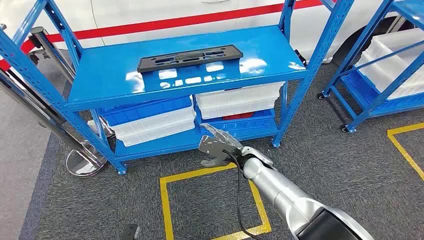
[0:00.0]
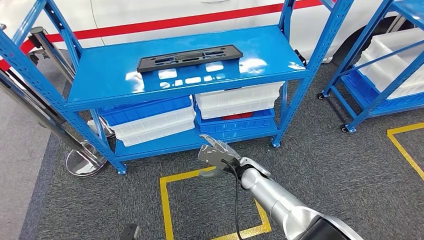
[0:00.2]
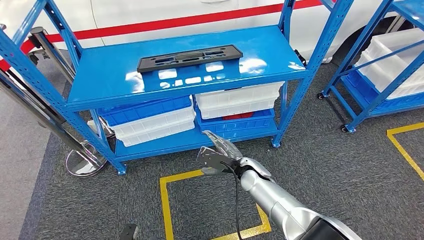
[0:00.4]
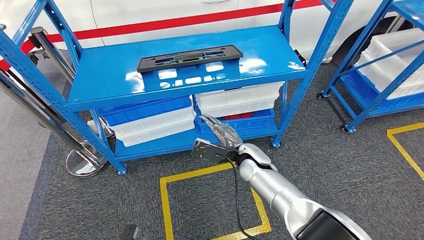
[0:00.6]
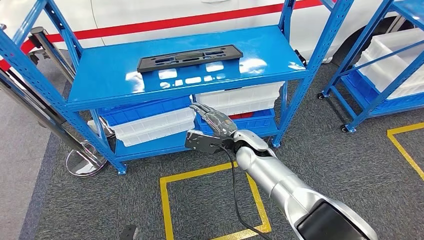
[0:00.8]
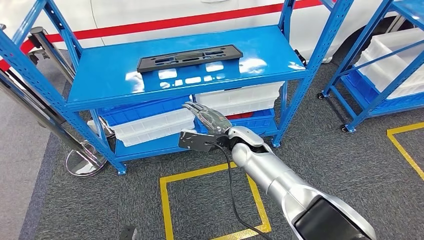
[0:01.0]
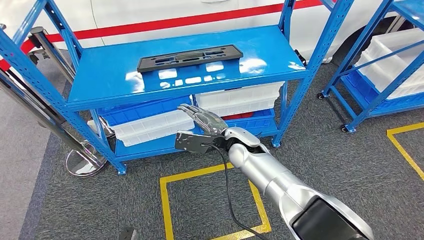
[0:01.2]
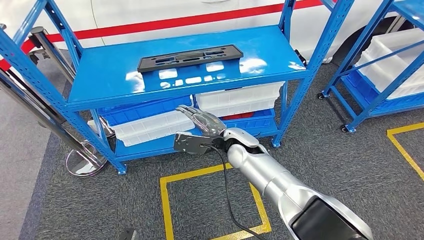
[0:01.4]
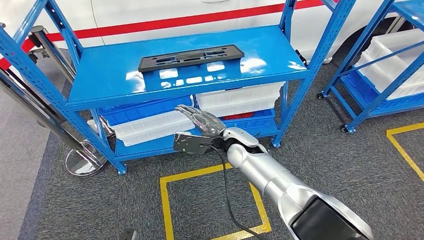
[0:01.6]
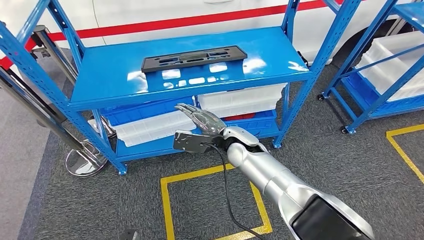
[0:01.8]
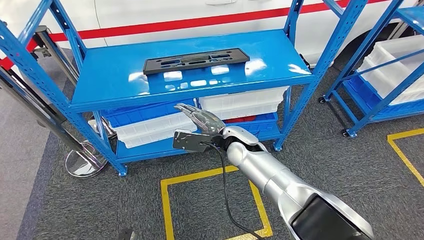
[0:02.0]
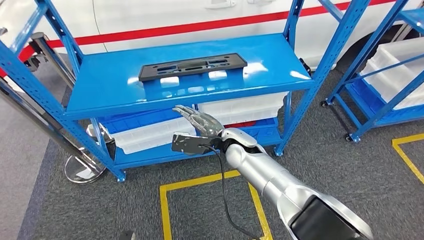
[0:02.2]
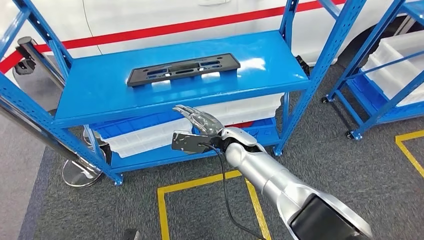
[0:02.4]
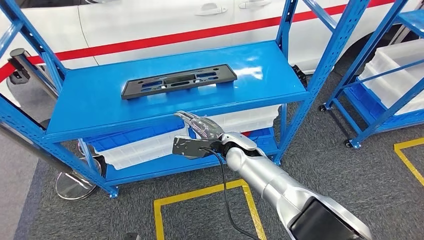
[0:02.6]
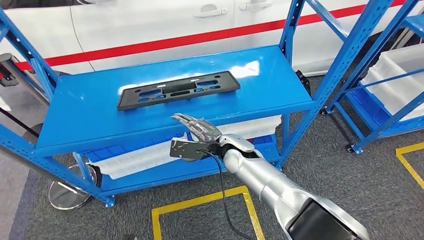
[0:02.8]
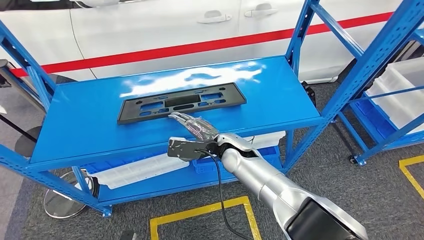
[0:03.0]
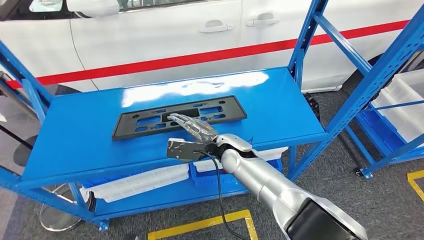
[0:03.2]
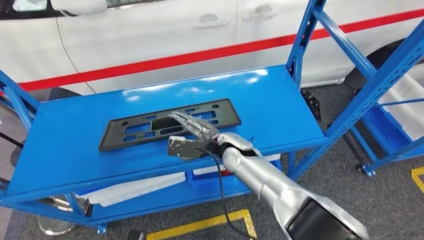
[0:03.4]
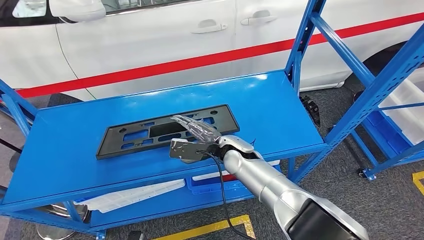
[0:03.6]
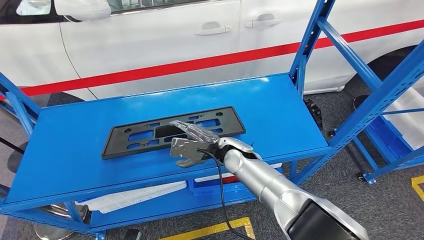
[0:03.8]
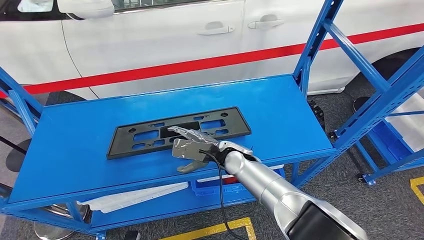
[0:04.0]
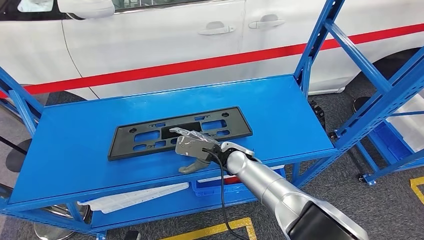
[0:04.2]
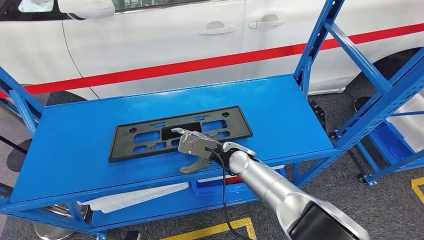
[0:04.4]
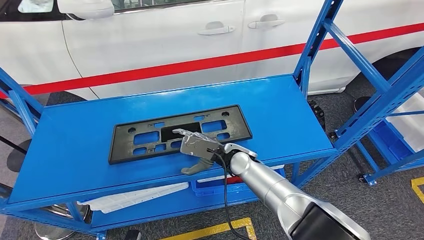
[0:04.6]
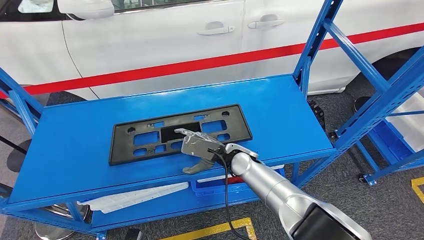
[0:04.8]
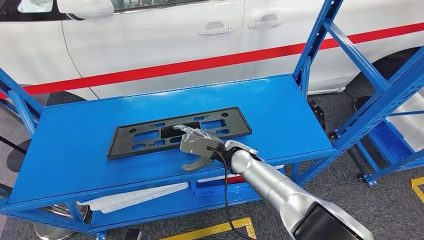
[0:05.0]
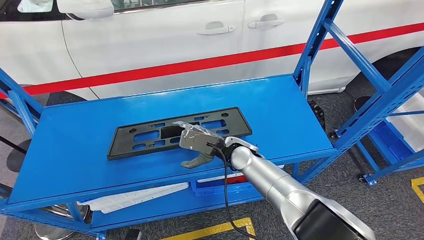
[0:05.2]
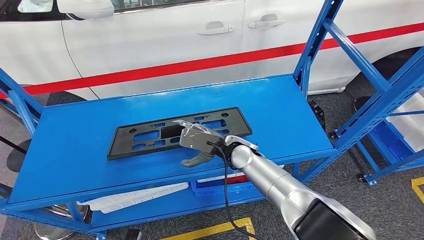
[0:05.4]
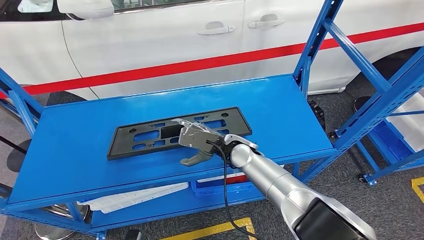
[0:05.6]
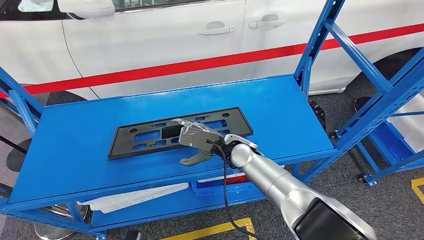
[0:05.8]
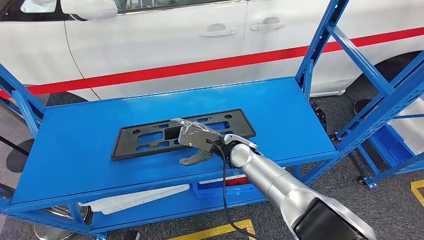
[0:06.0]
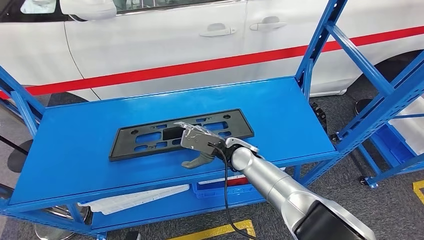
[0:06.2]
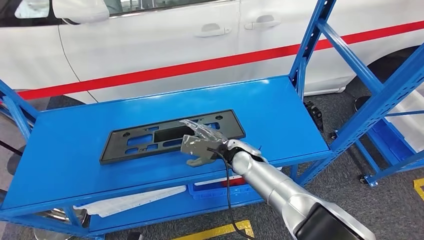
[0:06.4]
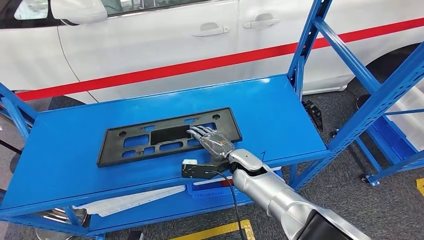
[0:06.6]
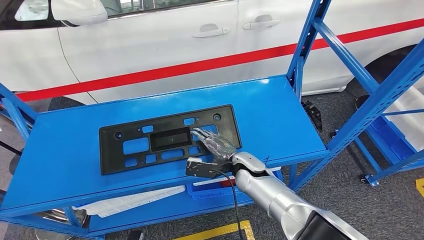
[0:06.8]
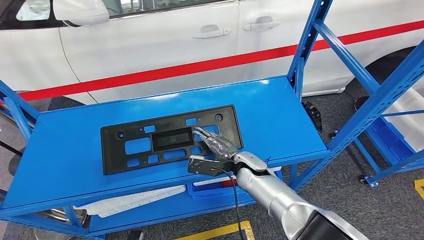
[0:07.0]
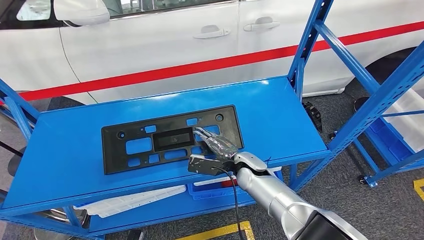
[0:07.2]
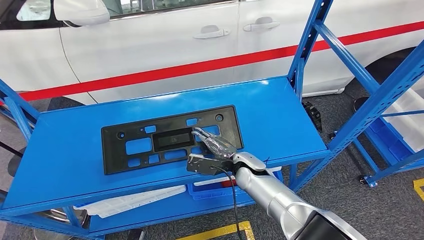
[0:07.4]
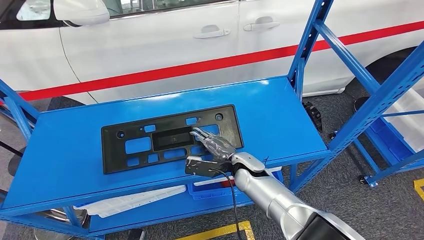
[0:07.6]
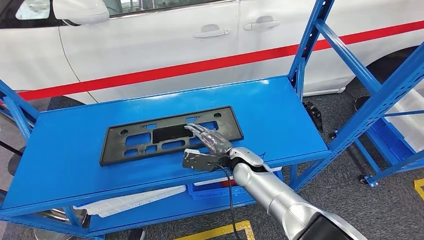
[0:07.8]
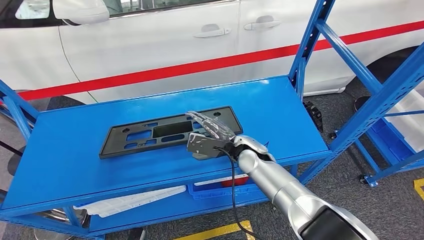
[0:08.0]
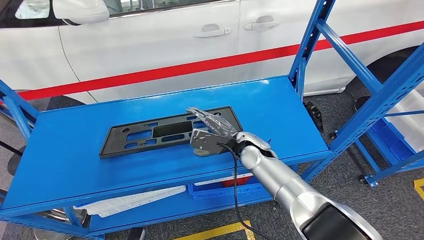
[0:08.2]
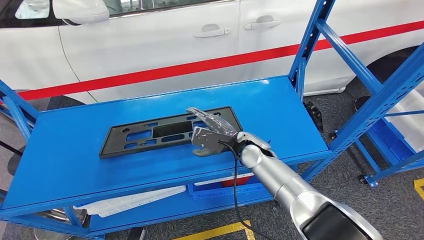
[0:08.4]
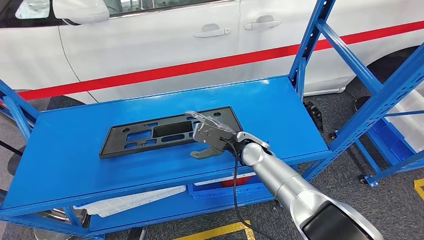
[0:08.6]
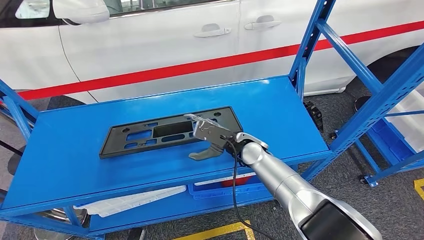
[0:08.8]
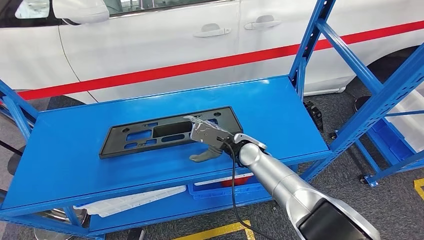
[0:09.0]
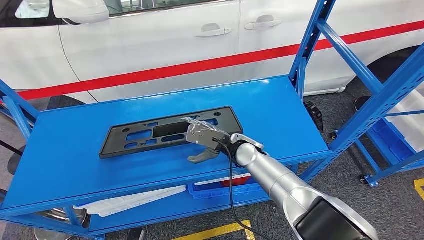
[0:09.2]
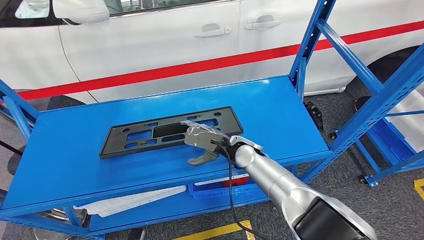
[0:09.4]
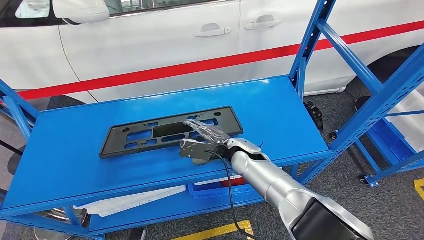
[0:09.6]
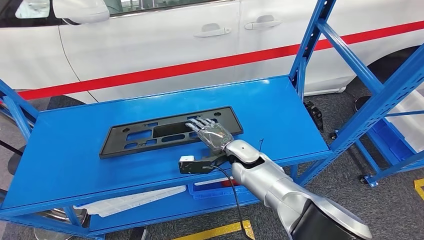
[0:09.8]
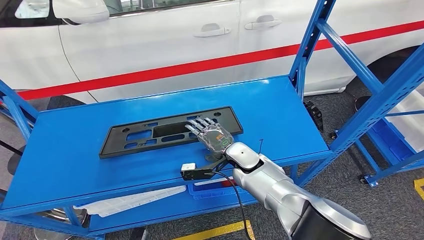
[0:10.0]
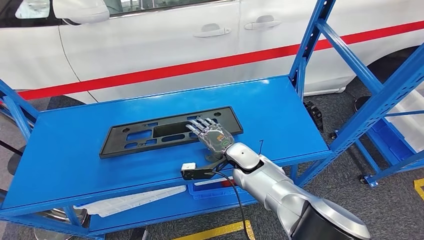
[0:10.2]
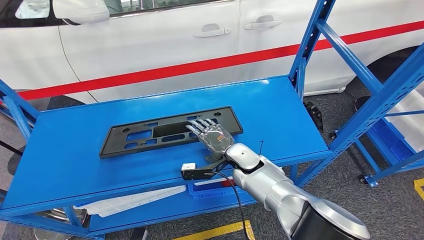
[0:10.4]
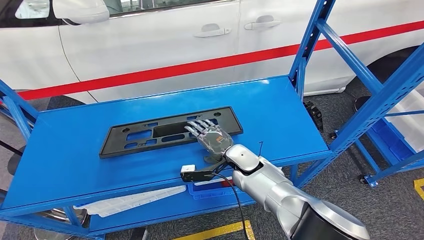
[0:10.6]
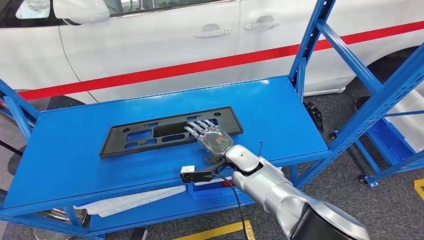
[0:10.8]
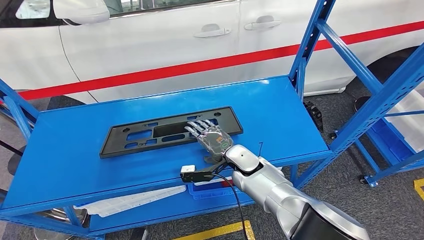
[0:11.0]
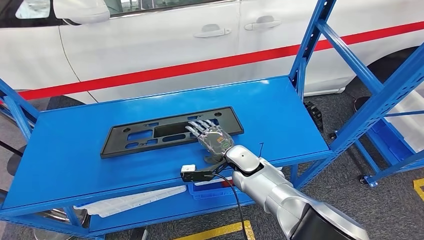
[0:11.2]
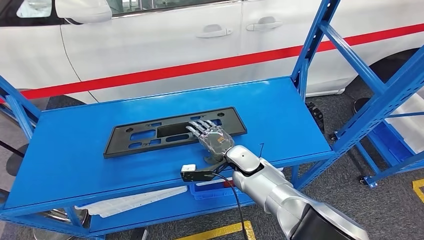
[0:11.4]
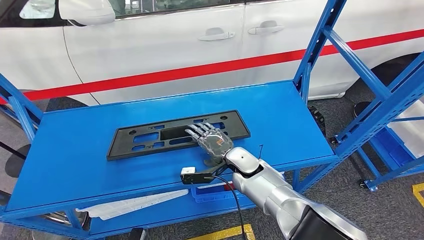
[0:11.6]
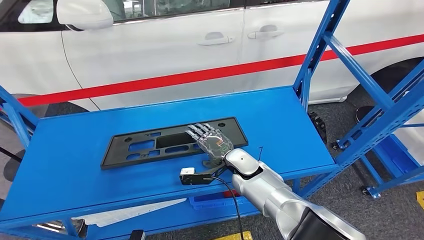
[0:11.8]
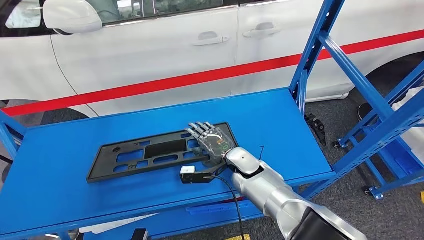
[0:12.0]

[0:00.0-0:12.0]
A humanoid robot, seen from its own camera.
0:04.4 to 0:06.0: The hands make only small movements.
0:07.6 to 0:09.0: The right hand heads upward, covering approximately 5 cm.

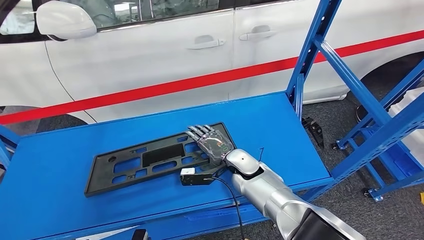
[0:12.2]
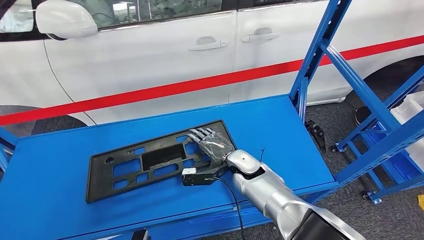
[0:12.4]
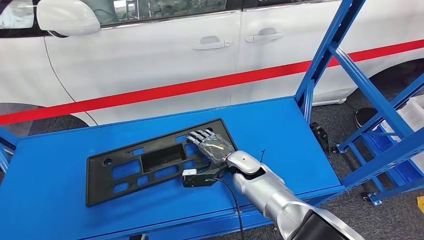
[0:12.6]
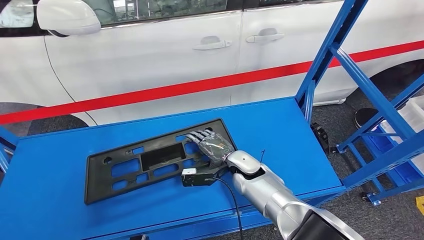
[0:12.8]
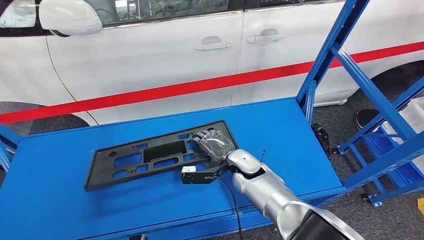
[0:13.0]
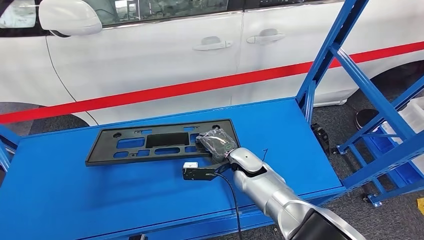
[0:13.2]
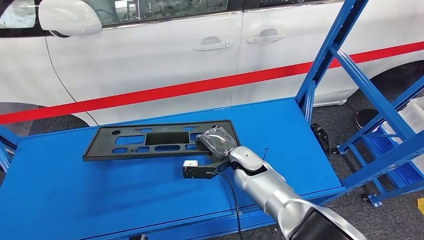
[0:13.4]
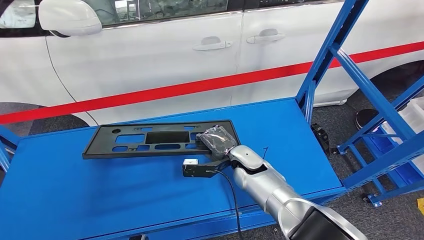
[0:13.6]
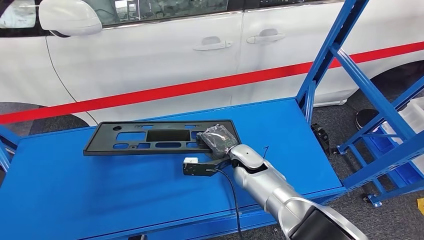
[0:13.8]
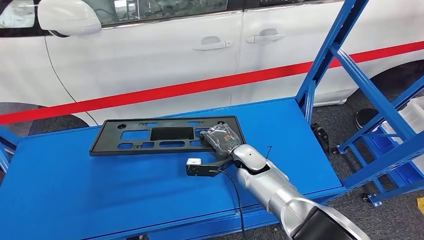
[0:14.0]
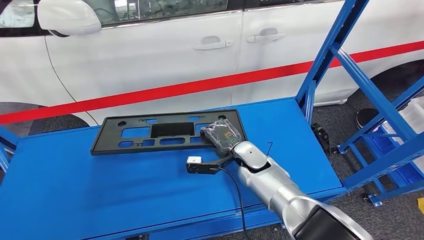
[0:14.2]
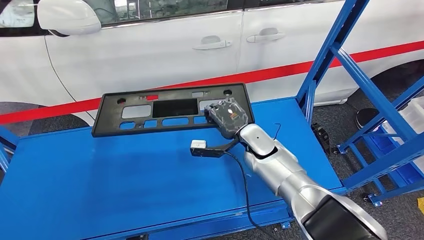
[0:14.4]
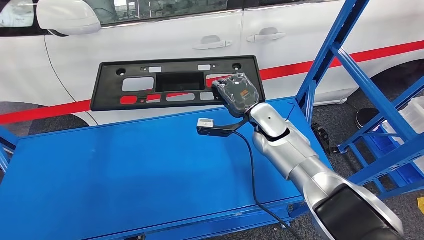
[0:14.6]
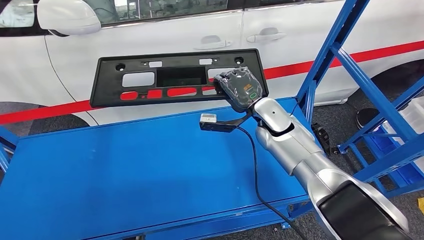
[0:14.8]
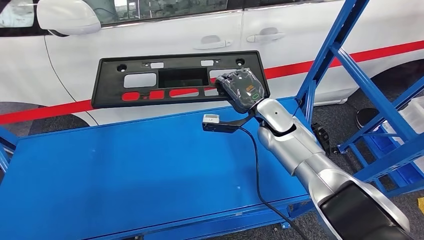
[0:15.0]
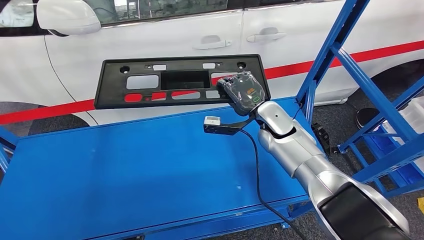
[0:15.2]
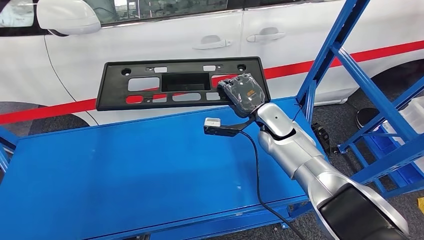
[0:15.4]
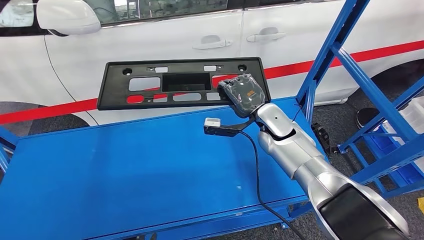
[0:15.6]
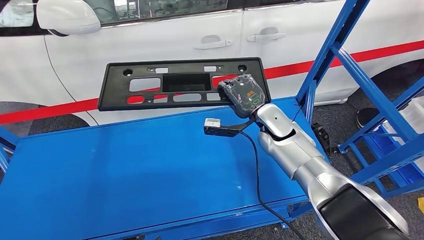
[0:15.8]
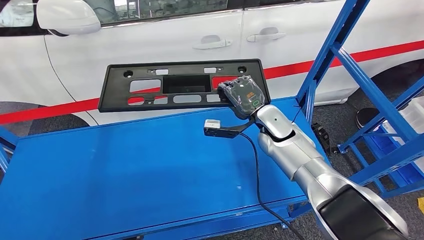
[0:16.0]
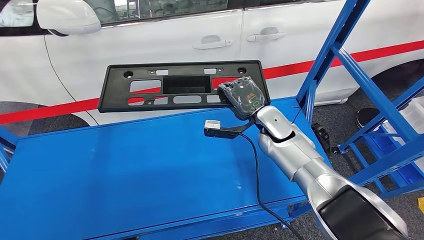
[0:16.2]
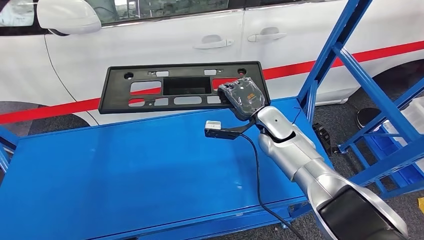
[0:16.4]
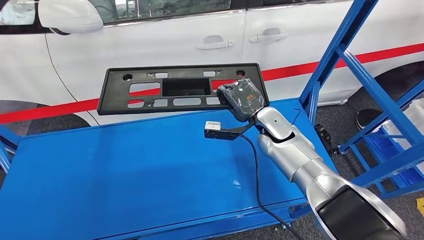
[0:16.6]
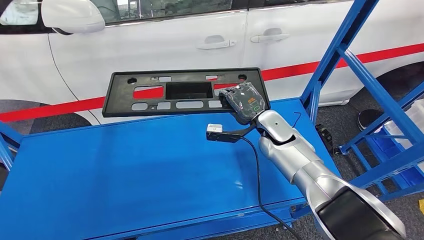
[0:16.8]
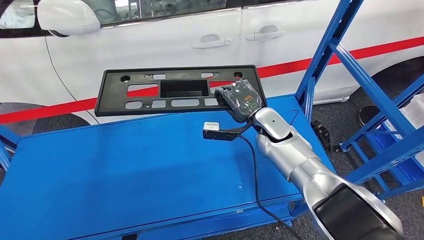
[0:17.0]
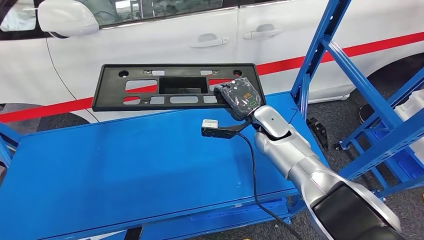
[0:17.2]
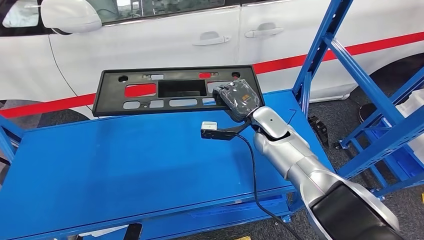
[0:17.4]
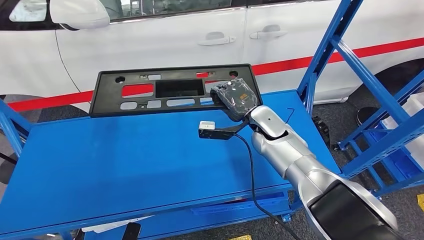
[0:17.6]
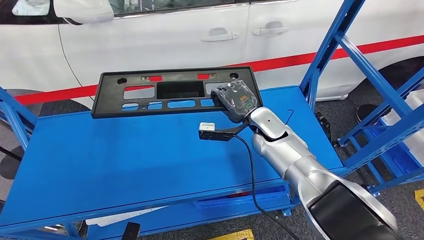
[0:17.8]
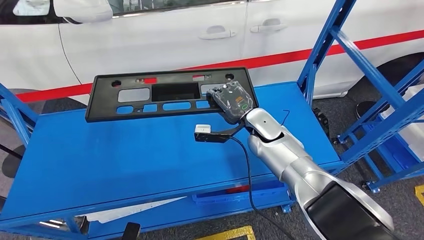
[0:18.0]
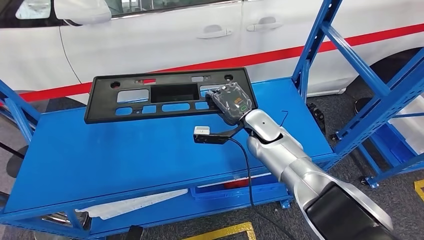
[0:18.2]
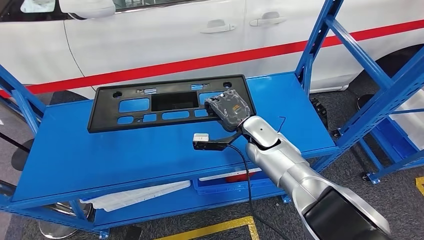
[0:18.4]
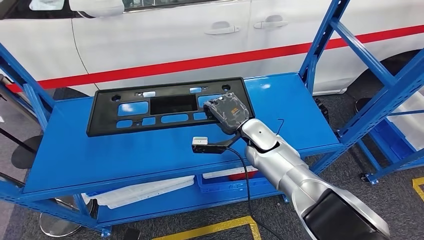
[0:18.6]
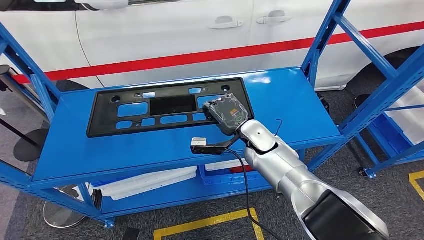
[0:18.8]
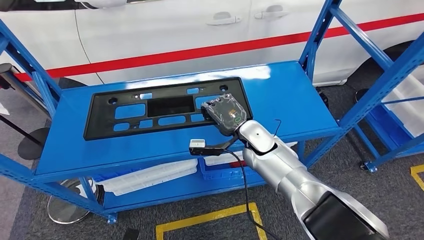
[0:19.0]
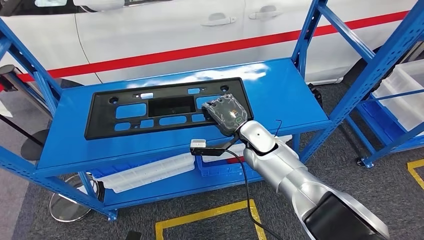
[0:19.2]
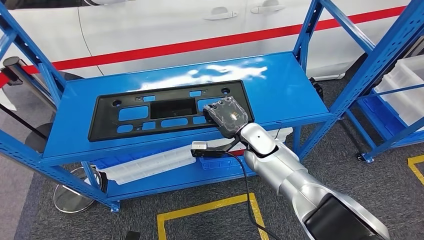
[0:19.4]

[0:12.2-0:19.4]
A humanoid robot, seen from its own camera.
Step, 0:12.2 to 0:14.6: Pick up the large material from the shelf.
